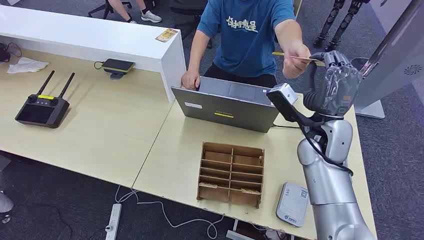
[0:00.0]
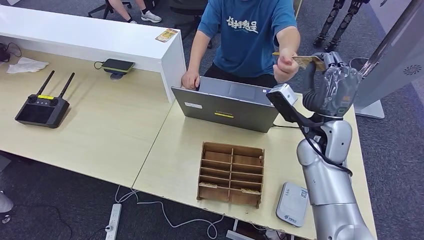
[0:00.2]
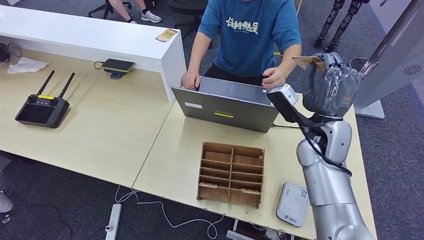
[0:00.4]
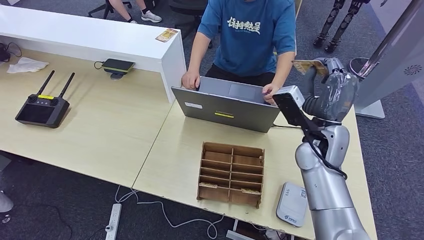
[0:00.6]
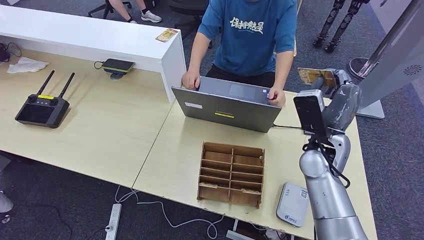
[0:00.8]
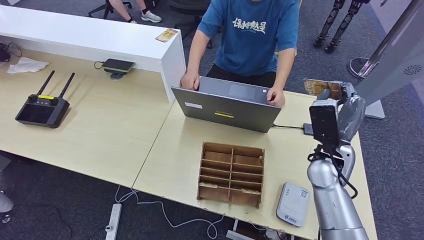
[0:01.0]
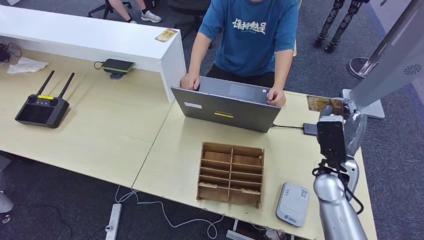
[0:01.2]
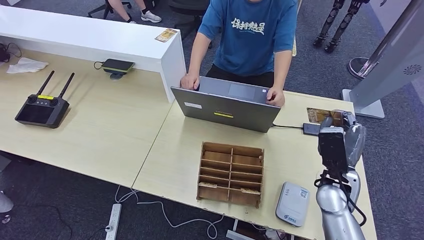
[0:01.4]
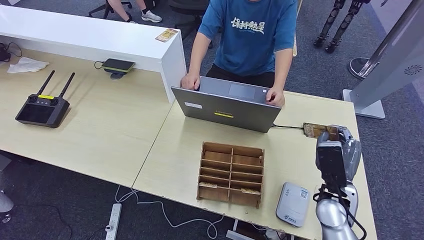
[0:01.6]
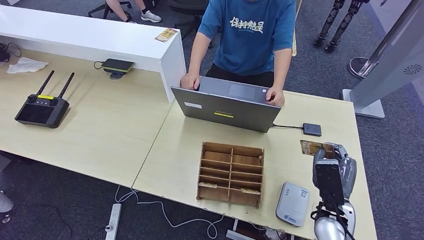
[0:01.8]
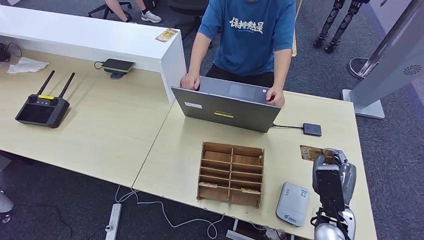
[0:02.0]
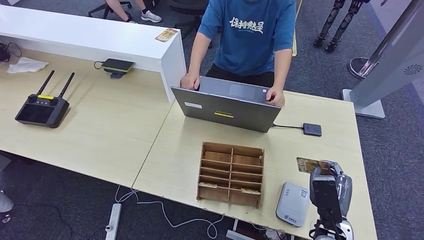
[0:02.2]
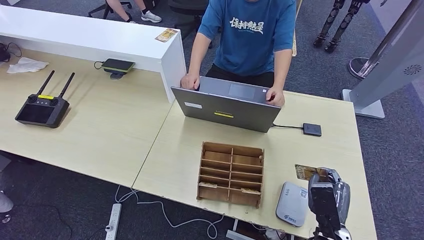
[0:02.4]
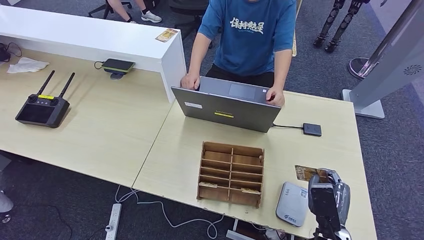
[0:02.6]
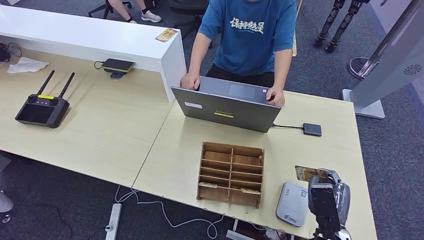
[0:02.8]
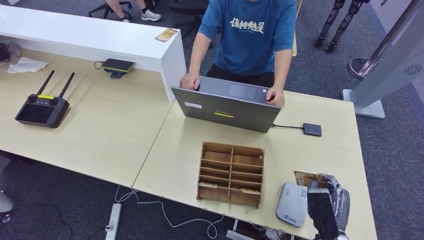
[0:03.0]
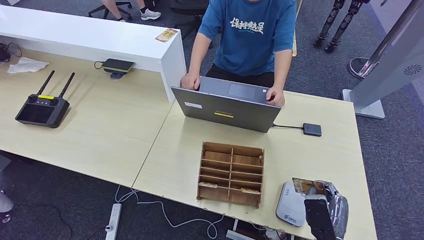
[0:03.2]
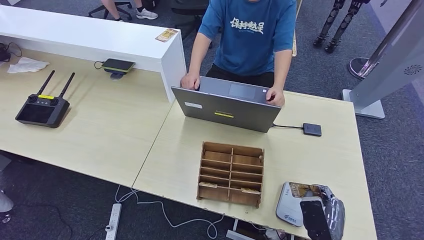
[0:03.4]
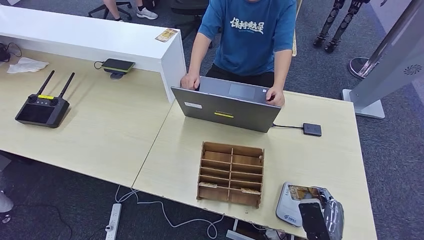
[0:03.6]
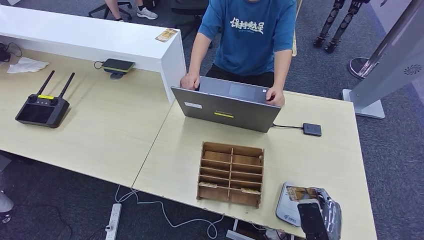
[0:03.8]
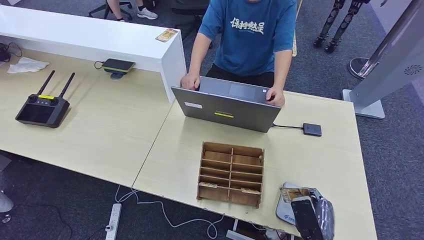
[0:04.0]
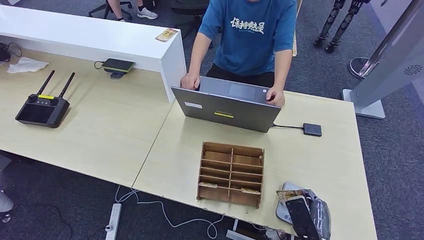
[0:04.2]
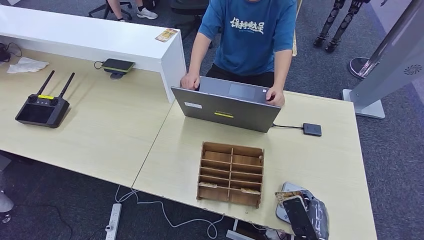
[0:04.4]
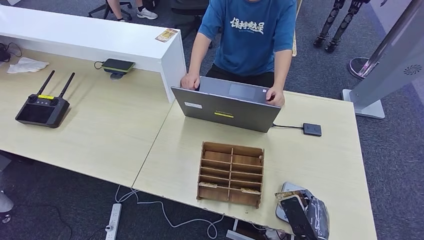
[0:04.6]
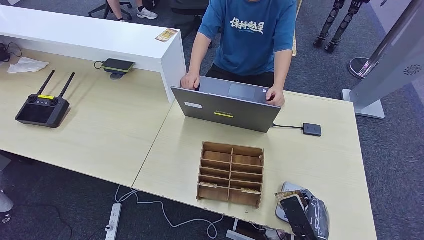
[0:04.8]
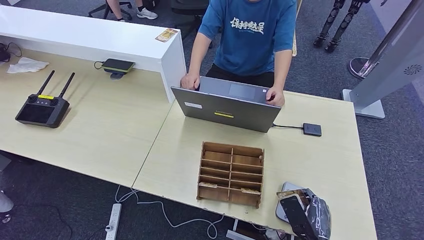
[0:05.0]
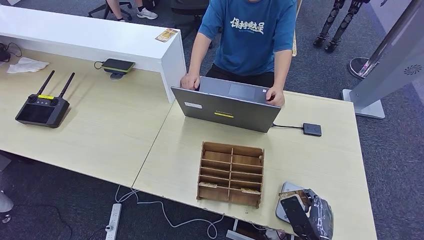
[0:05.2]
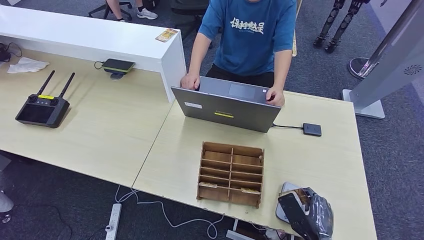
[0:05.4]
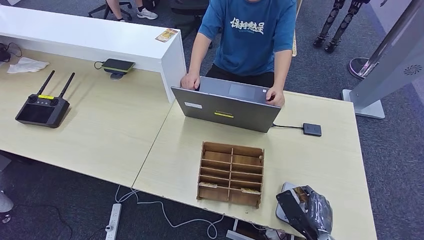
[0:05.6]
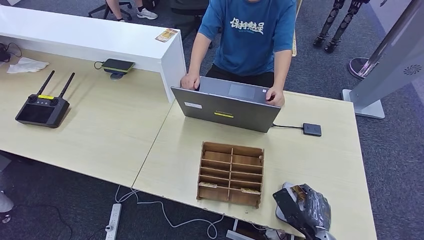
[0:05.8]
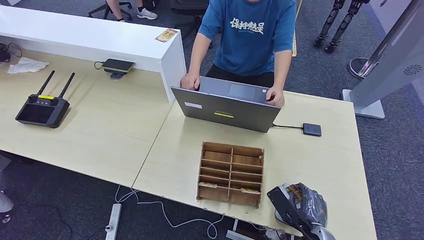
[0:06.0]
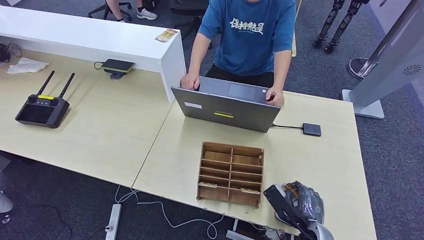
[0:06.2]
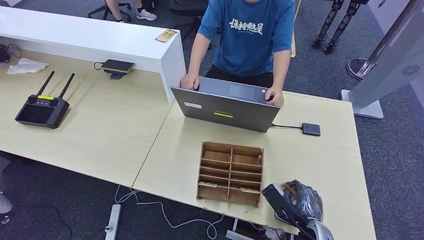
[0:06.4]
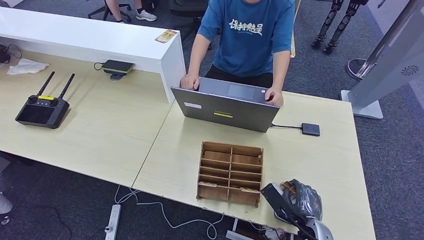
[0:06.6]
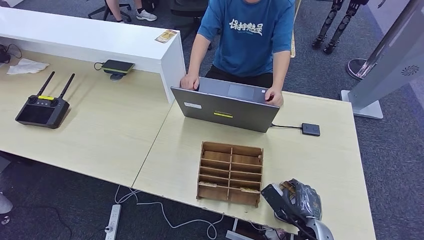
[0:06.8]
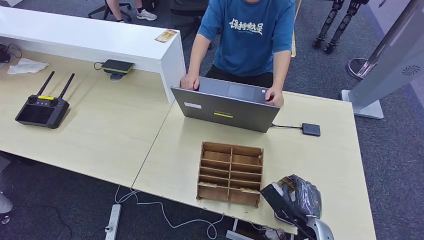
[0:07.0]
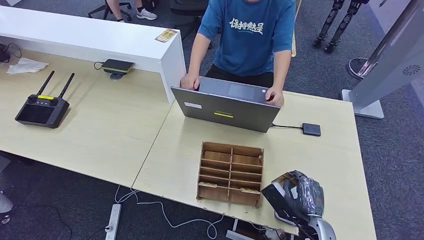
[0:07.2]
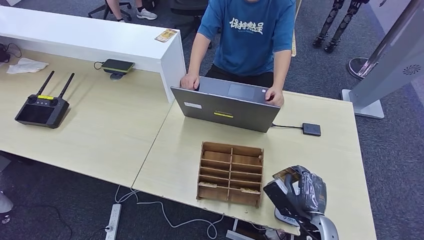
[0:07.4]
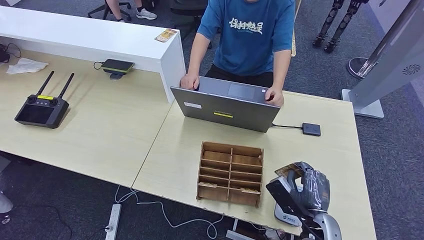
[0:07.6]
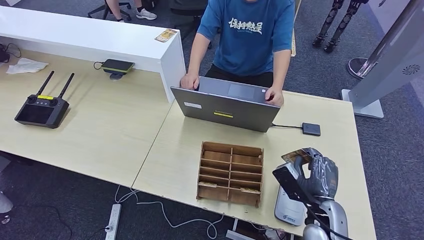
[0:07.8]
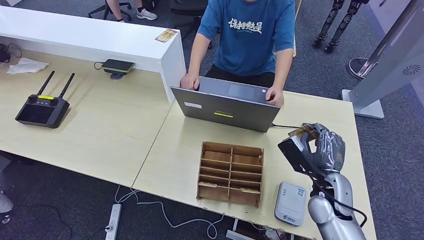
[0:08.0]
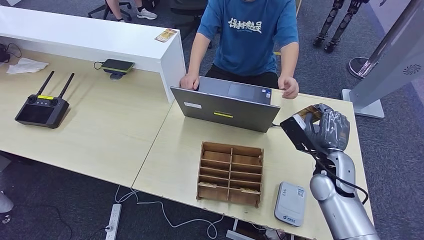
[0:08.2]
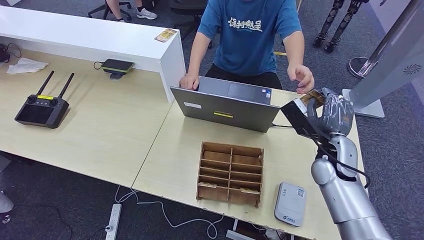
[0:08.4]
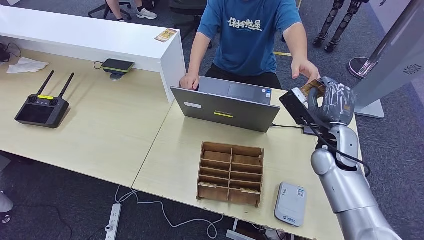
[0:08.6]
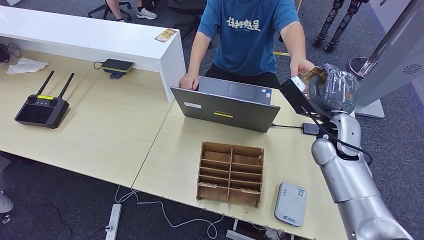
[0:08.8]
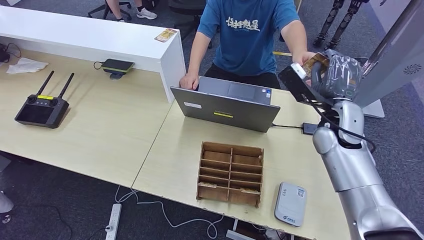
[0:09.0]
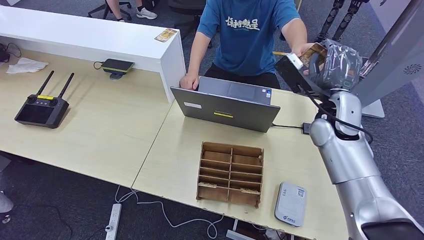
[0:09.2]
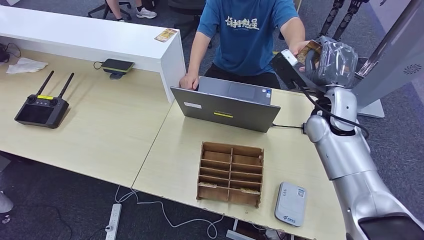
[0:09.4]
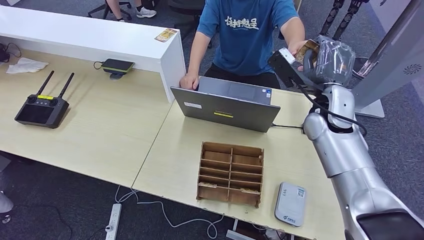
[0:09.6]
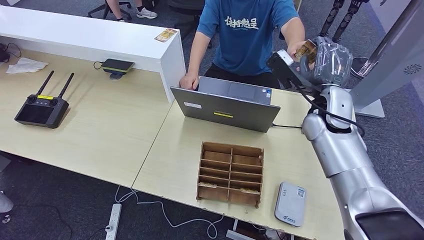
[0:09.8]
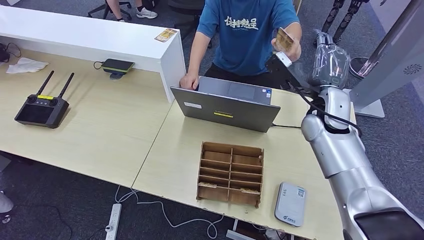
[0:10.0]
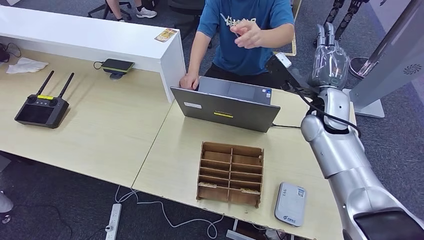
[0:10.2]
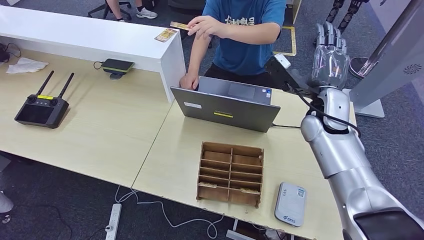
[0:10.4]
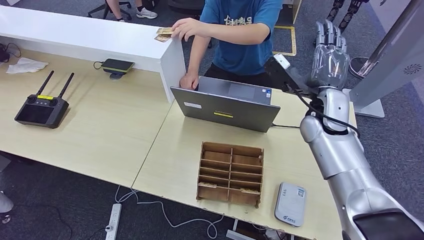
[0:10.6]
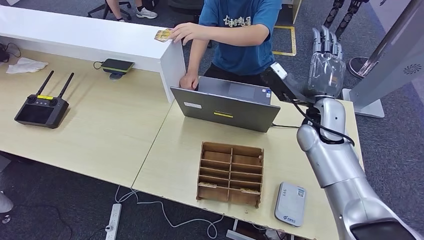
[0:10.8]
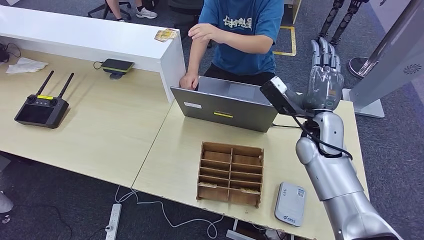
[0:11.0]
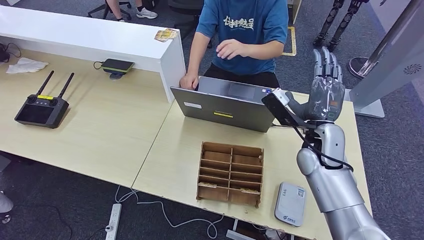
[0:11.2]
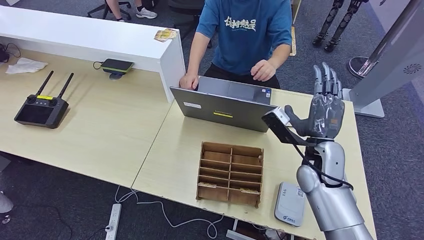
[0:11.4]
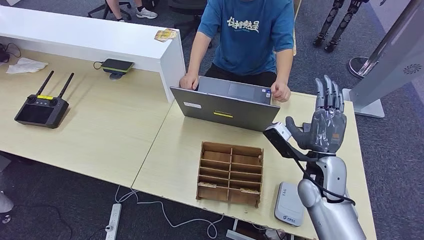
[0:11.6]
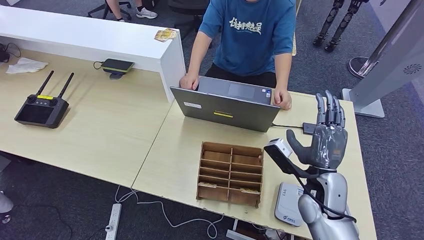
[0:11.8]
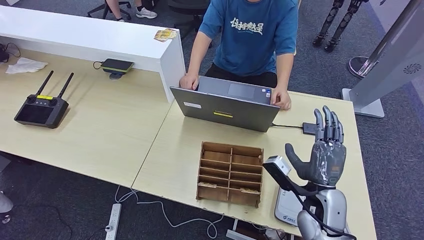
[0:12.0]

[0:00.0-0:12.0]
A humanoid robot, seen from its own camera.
Step, 0:00.0 to 0:00.8: Take the ID card from the person's hand.
Step, 0:01.0 to 0:08.0: Place the ID card on the card reader.
Step, 0:08.2 to 0:10.6: Hand the ID card to the person.
0:01.6 to 0:03.0: The right hand is displaced backward and downward by about 10 cm.
0:03.0 to 0:04.4: There are only small adjustments of the hands.
0:07.6 to 0:09.0: The right hand shifts some 25 cm upward and forward.
0:09.0 to 0:10.4: The hands make only small movements.
0:10.4 to 0:12.0: The right hand goes about 20 cm backward and downward.

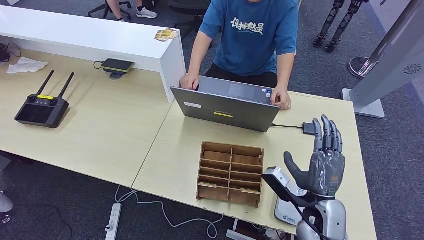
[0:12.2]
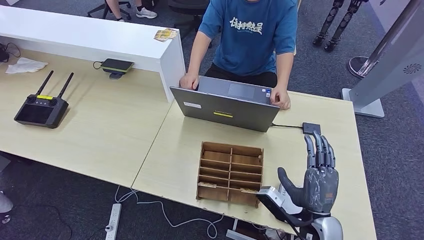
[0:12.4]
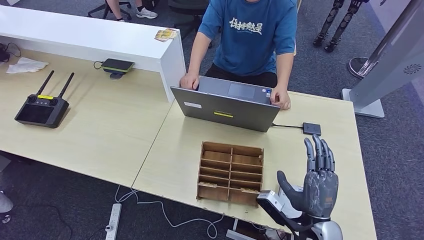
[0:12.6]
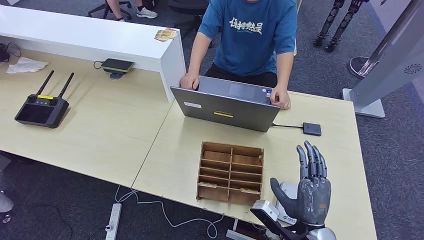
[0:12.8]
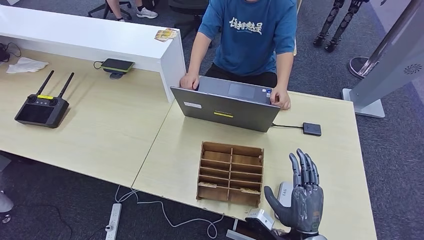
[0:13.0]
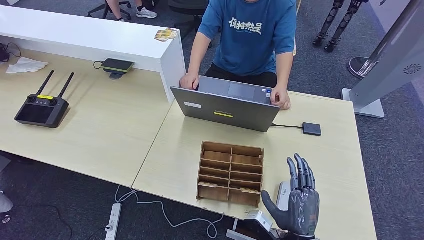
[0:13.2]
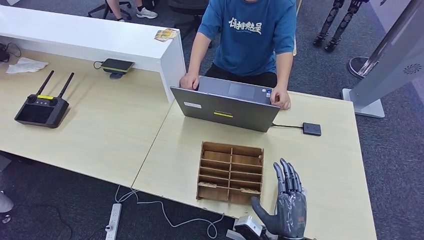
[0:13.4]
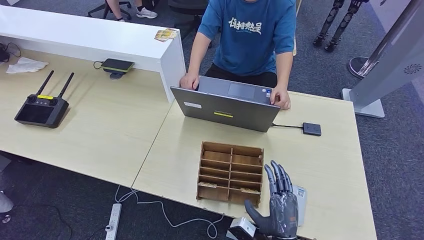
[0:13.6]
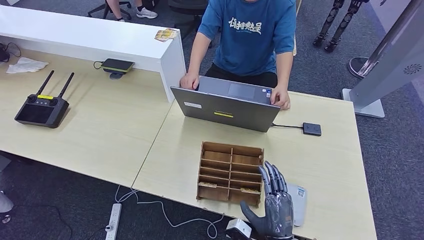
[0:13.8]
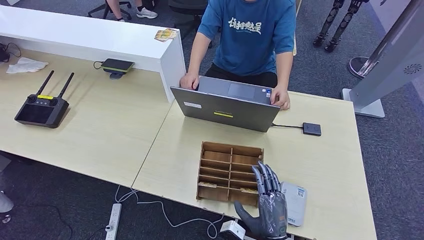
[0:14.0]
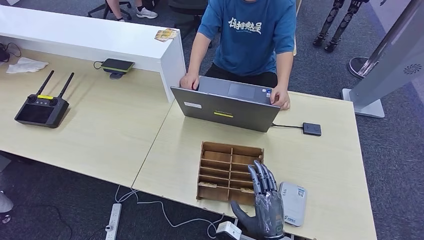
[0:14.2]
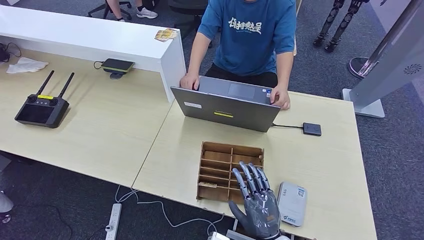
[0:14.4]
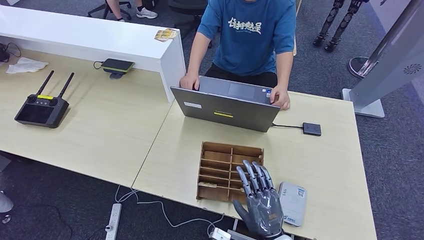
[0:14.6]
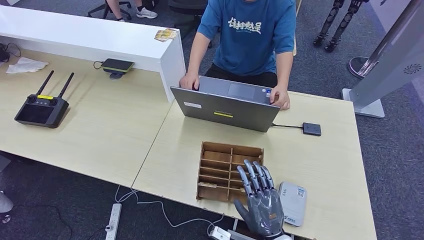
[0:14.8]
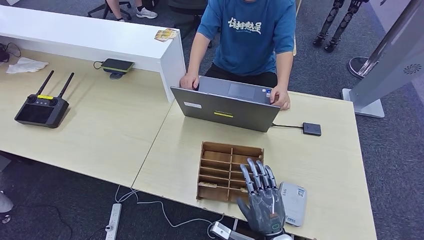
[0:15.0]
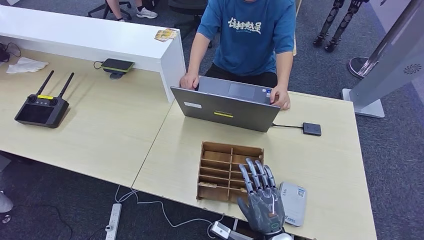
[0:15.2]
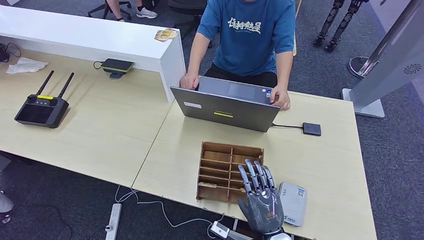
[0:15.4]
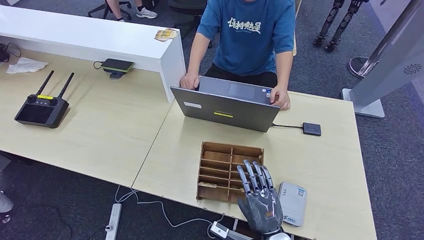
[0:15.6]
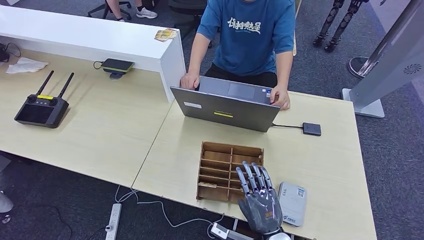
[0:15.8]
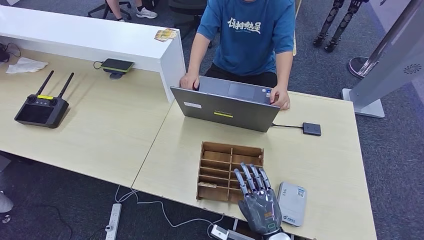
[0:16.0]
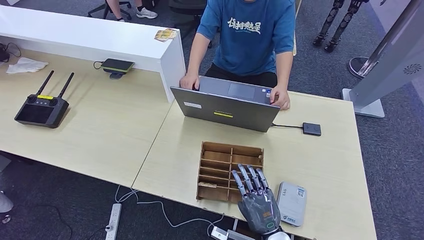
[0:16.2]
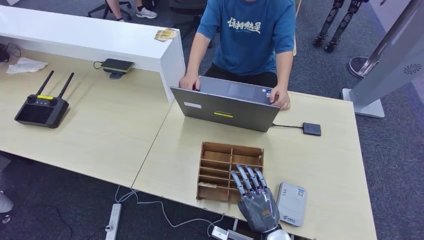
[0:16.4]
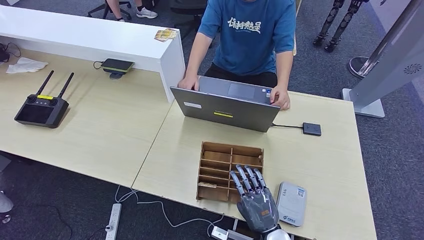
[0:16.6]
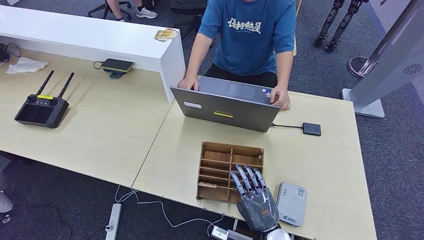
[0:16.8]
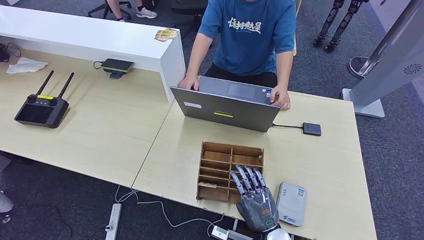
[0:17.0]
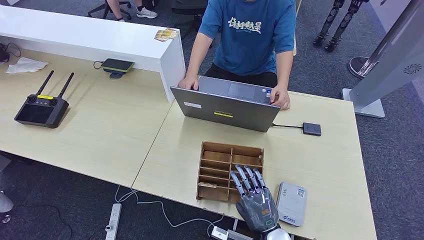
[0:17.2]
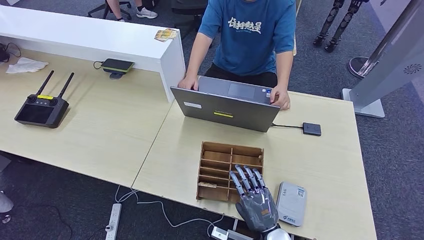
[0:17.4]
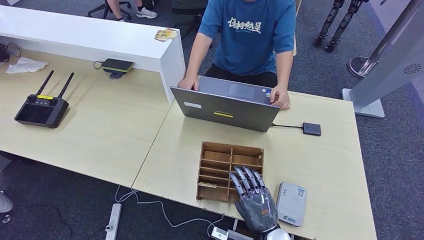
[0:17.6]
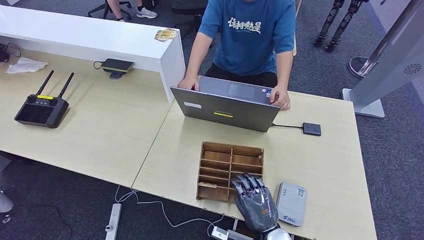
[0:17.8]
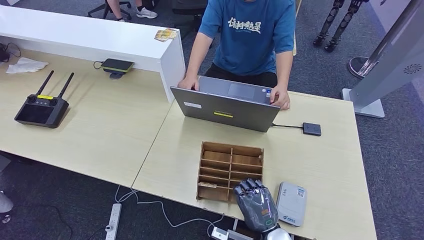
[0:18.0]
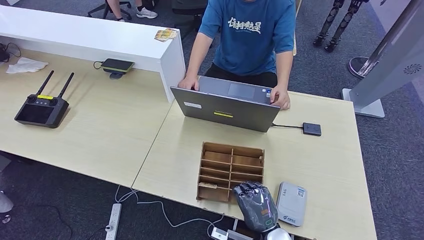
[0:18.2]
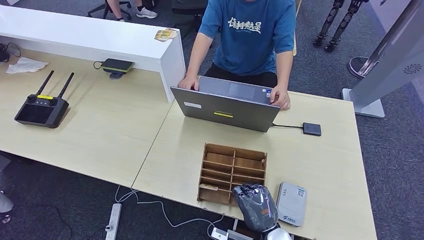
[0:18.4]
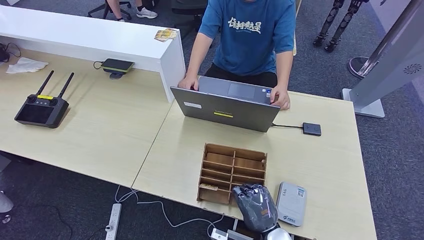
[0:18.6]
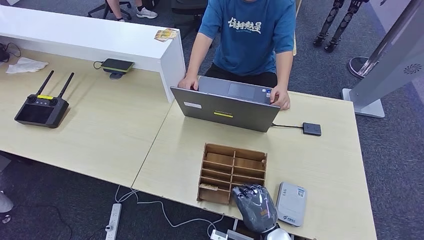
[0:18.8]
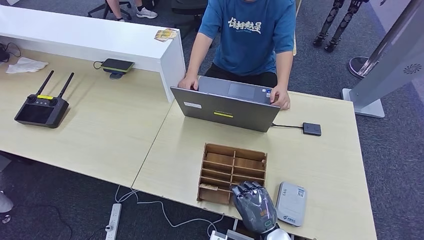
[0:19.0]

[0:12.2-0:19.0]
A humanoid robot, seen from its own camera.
0:12.2 to 0:13.6: The right hand shifts approximately 10 cm backward, downward and to the left.
0:15.0 to 0:17.6: The hands move only a little.
0:17.6 to 0:19.0: The two hands keep their place.
